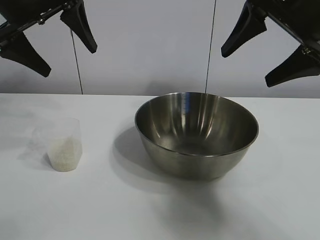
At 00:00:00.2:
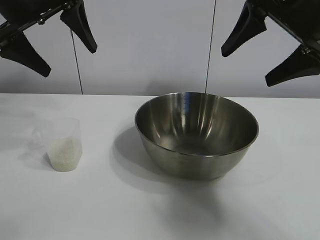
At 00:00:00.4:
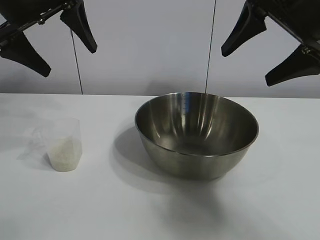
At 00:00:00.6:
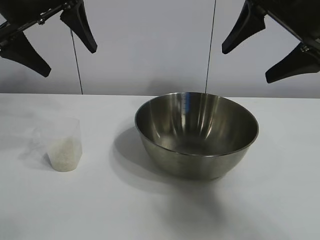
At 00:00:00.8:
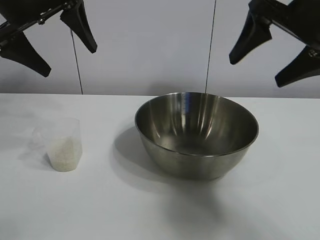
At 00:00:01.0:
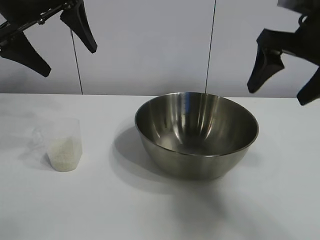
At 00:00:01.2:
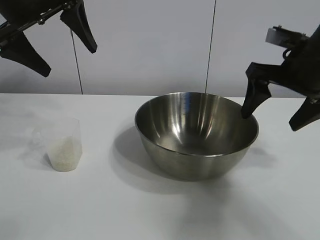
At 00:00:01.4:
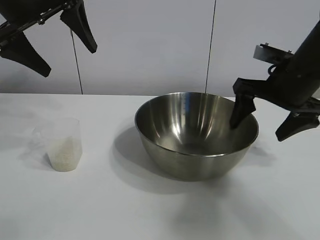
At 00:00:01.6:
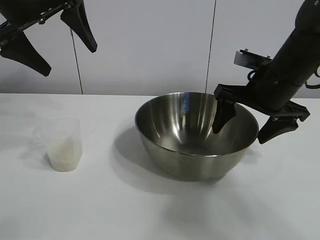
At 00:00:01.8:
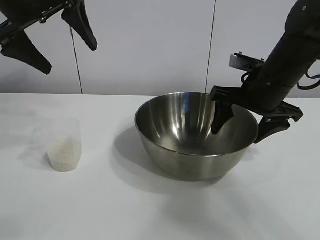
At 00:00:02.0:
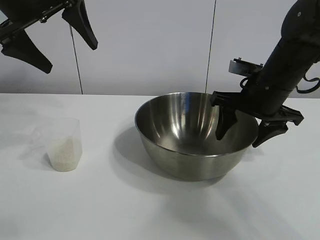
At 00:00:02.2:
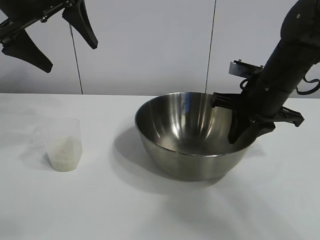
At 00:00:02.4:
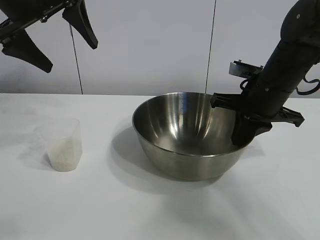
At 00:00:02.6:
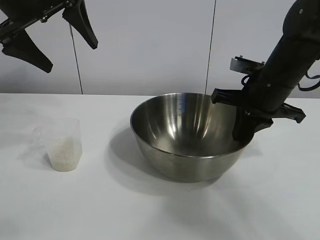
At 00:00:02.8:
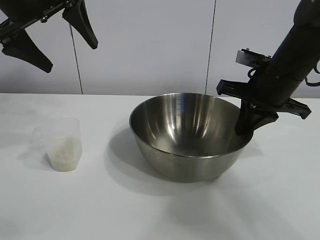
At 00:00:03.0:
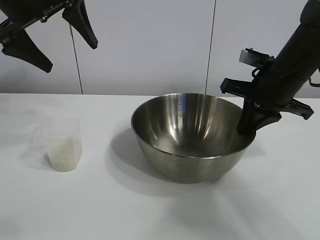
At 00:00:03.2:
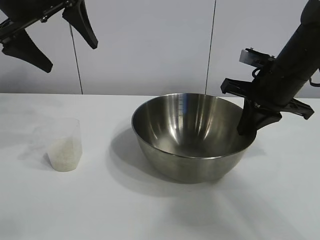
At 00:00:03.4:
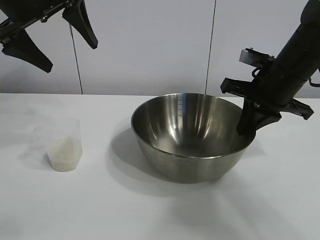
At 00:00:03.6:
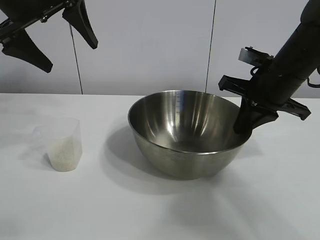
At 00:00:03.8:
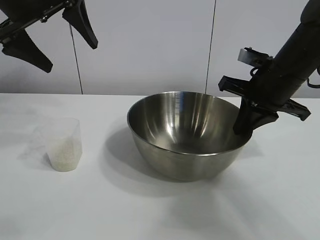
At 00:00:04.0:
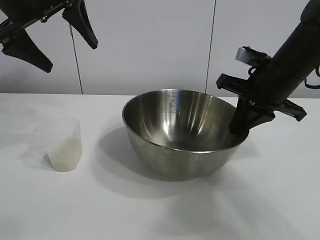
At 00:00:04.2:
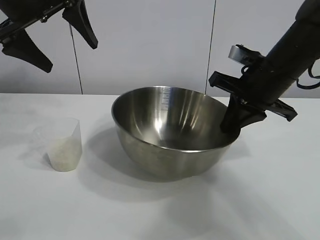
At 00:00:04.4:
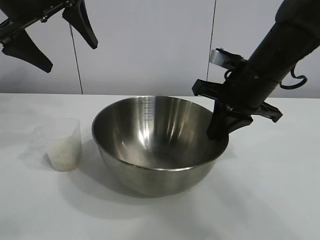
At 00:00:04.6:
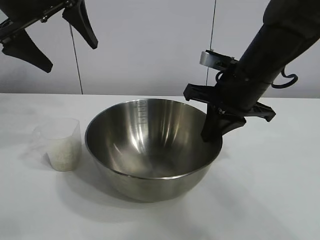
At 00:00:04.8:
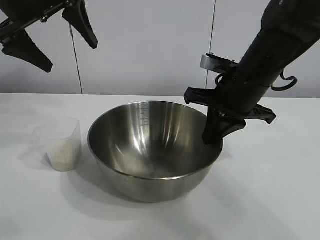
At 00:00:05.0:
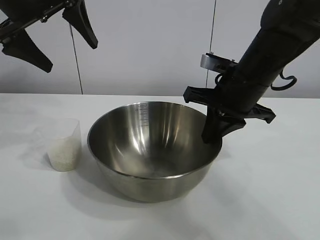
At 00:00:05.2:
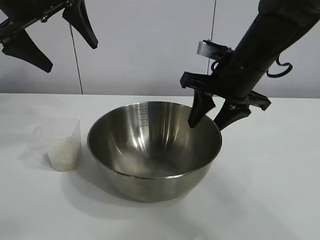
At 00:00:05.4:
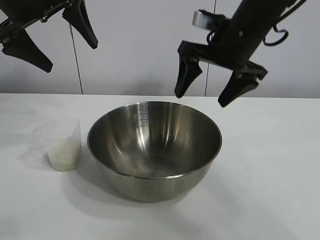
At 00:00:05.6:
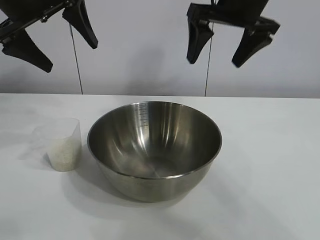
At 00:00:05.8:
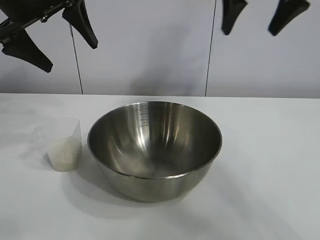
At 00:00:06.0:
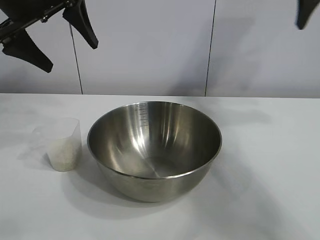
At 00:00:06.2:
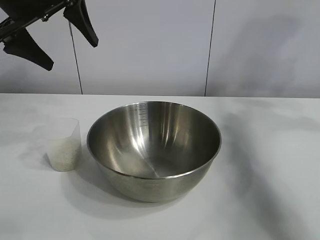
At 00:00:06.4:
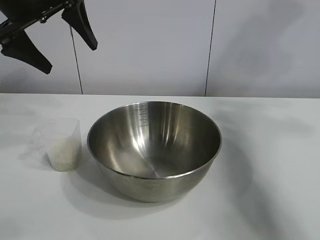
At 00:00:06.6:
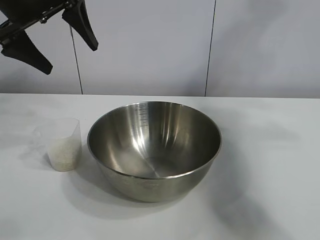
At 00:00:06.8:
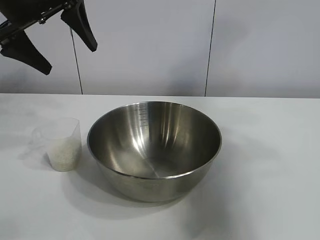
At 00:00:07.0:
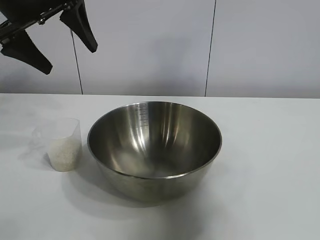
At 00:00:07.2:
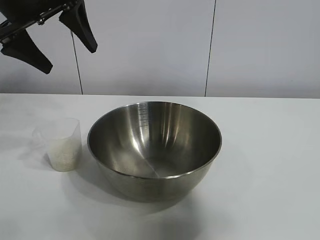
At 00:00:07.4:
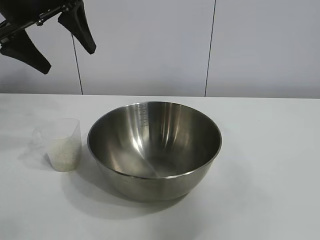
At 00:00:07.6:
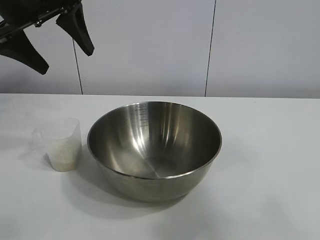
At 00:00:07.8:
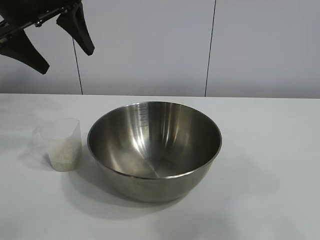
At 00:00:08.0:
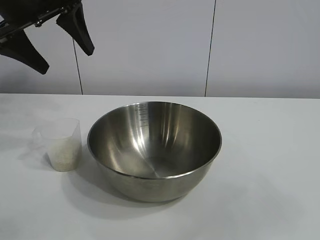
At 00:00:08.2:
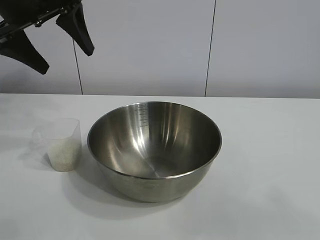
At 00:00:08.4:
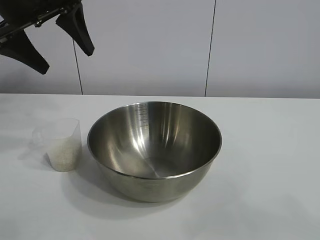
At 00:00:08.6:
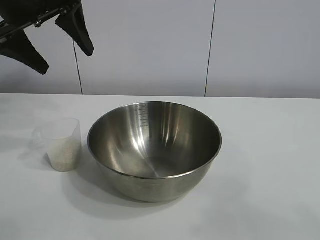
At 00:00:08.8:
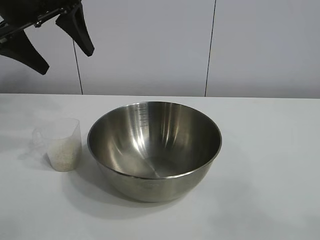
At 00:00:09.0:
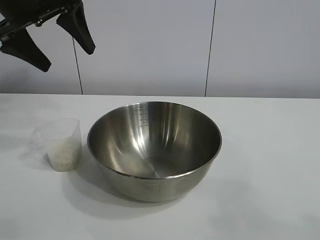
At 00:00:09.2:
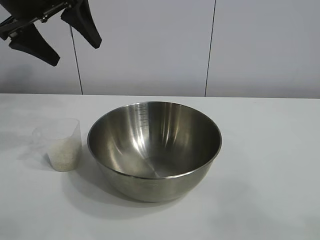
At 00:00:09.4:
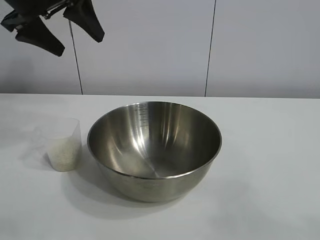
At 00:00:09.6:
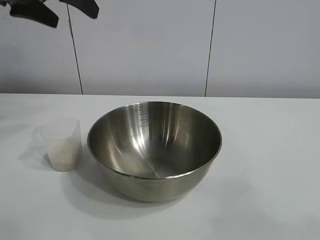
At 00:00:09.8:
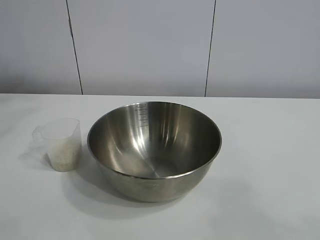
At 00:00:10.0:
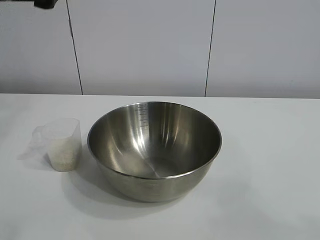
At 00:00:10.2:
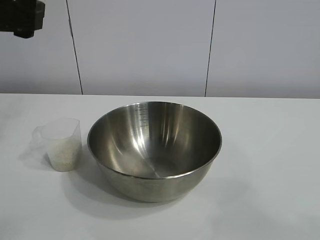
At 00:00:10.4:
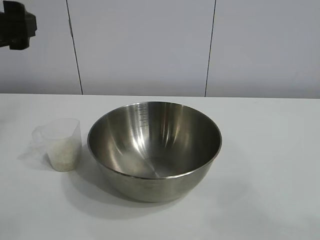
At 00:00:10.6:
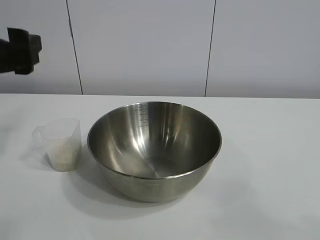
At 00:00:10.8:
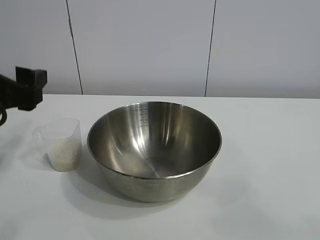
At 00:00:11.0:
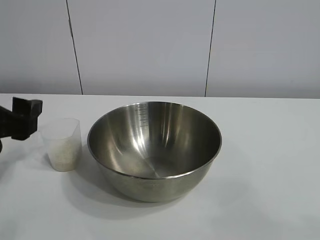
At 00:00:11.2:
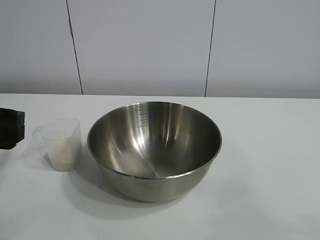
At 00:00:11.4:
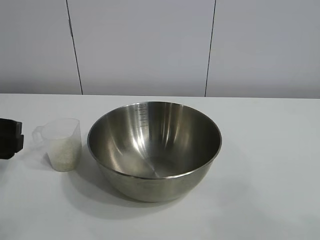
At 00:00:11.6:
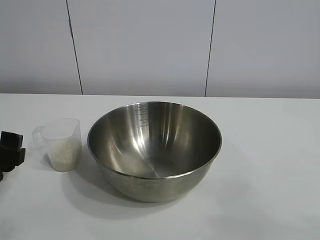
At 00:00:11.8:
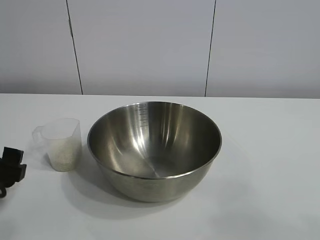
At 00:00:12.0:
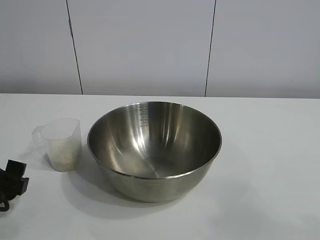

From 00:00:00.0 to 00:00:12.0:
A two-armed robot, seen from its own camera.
Task of the whole recording: the right gripper grasp the rice container and place it in the center of the table, the left gripper grasp the rice scoop and pour the rice into the rice container.
Step, from 00:00:00.6 to 00:00:05.0: Move the bowl in the center of view with right gripper.

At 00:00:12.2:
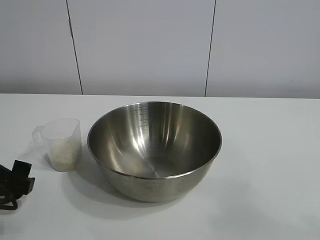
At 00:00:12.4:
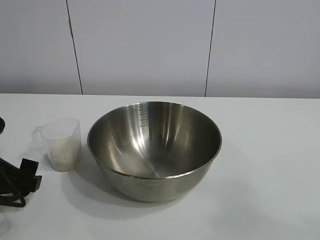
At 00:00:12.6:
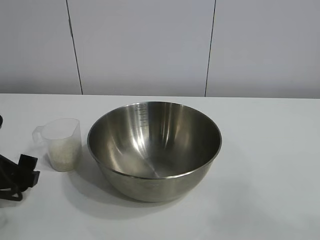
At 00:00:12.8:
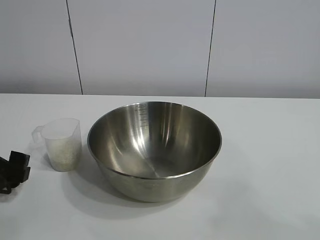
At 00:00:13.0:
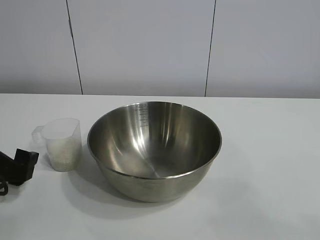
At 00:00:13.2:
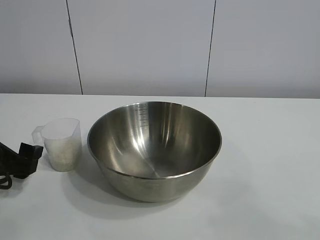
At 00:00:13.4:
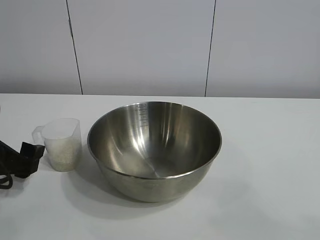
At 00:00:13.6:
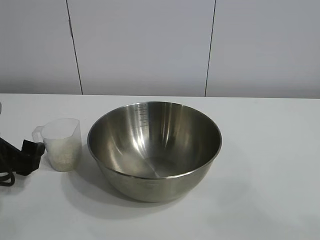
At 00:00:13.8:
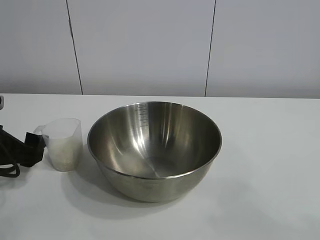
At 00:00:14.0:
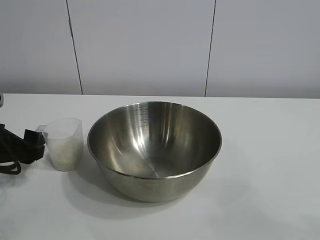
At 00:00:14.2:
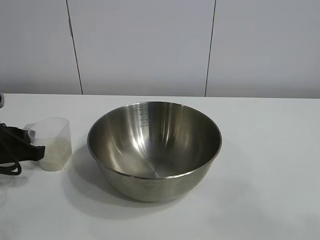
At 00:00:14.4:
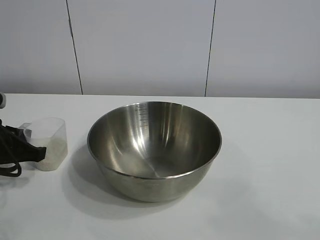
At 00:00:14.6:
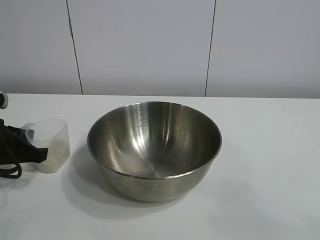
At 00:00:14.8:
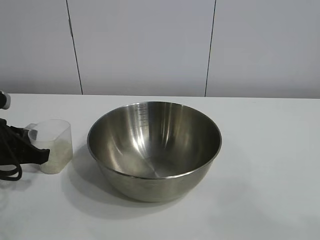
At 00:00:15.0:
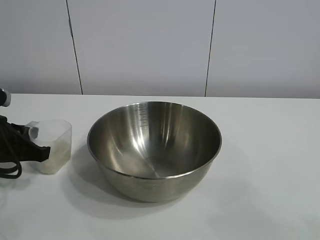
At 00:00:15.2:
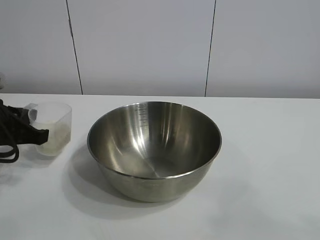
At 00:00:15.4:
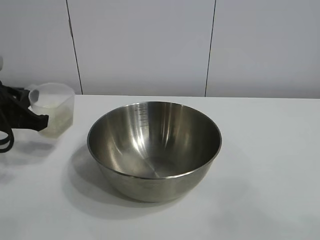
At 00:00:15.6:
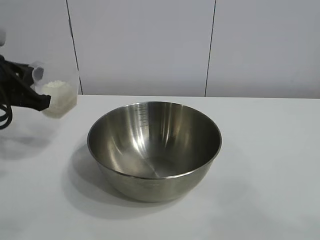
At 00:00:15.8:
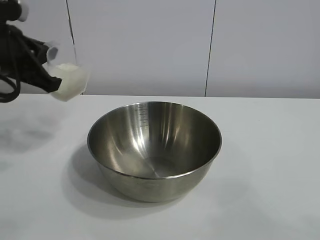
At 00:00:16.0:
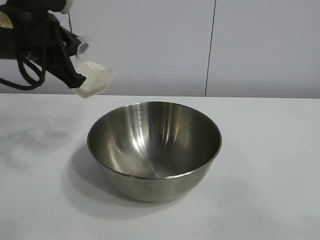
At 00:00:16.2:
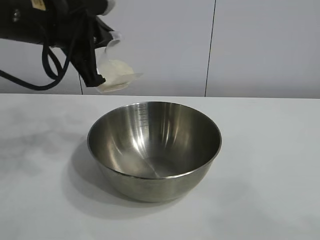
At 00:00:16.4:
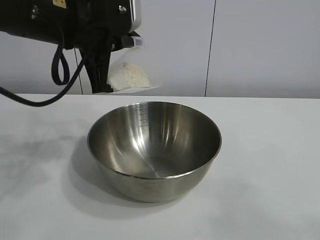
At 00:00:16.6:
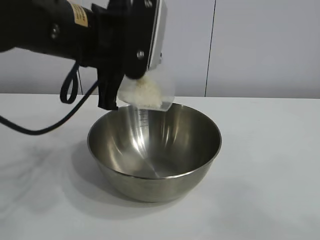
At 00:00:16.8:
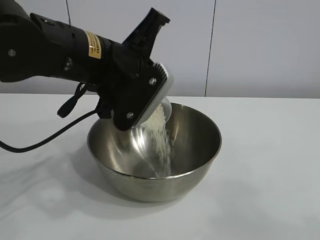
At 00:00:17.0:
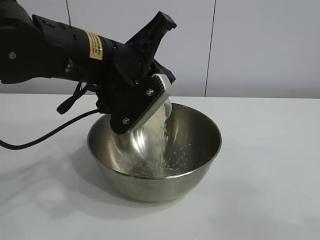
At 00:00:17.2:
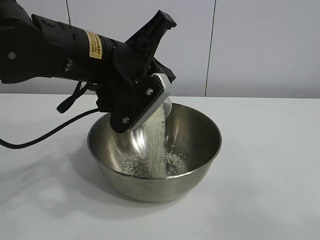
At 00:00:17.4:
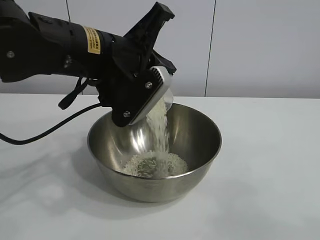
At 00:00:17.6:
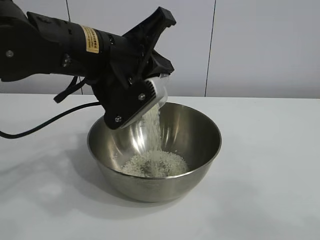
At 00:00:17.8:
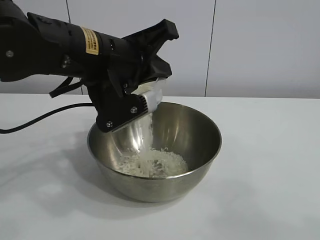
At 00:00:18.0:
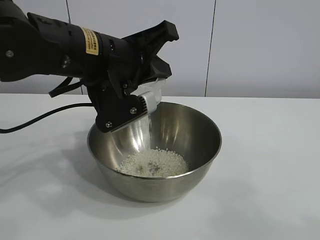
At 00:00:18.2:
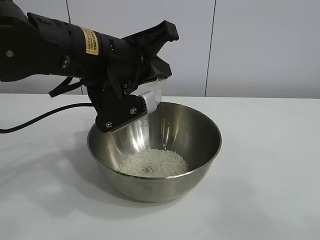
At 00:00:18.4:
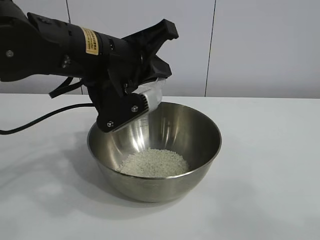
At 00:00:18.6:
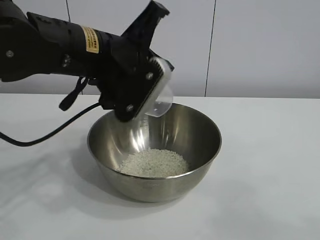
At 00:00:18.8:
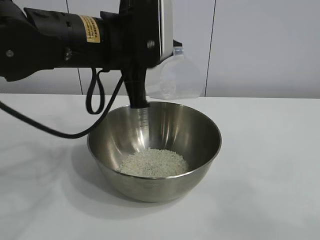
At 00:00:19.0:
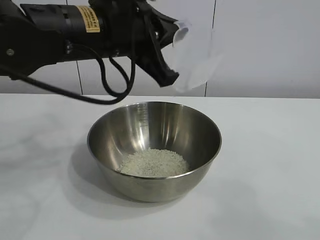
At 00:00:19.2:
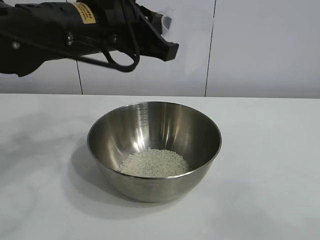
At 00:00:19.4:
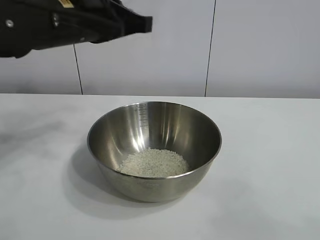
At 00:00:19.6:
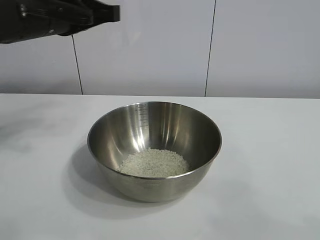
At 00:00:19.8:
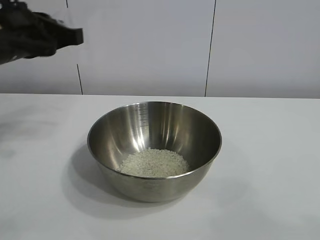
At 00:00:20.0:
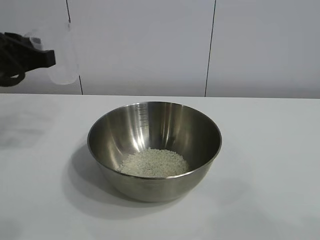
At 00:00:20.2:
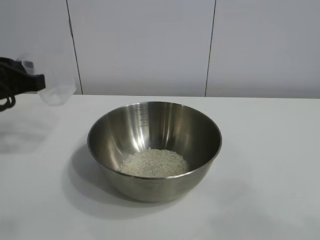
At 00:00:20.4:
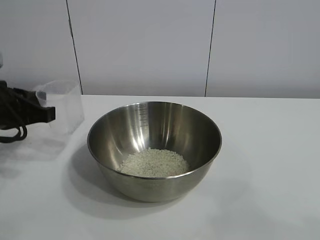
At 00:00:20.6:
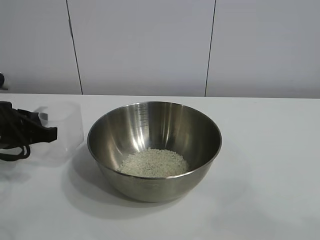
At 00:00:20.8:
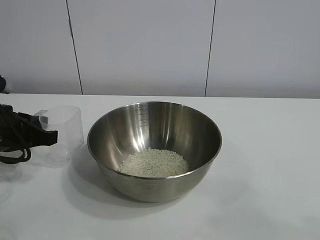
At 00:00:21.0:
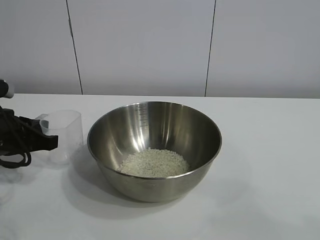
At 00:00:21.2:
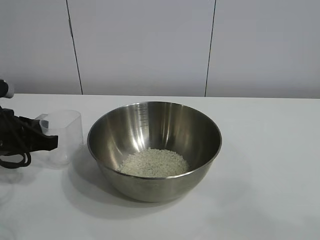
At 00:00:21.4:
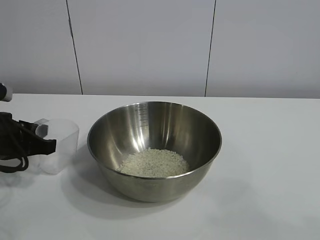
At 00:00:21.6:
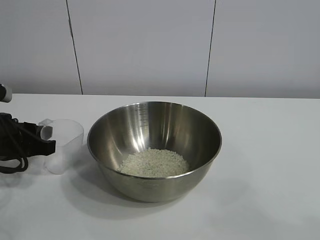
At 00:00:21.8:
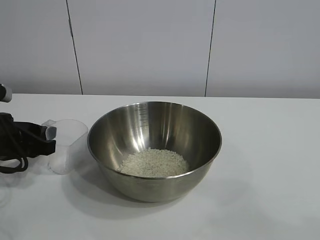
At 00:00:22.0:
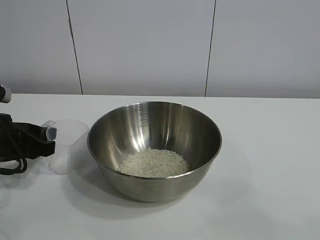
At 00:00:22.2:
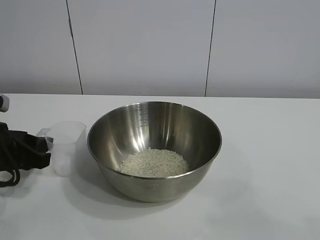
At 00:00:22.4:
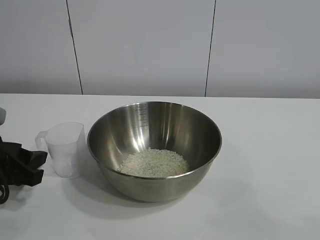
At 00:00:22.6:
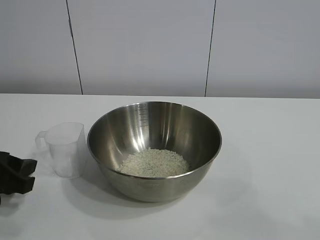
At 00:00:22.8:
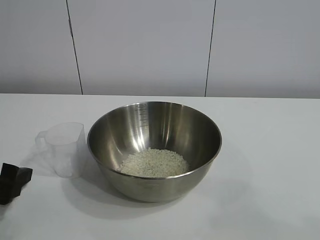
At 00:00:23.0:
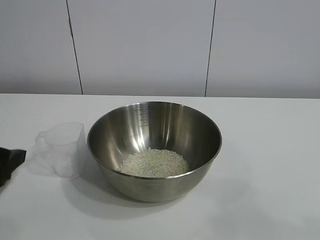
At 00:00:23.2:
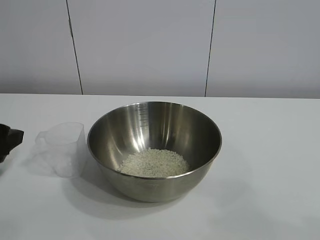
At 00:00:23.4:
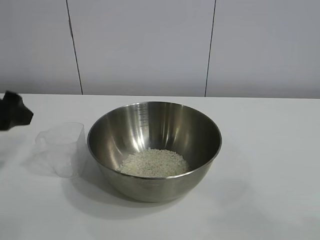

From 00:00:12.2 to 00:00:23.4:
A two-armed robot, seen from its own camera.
Task of the whole recording: the right gripper grasp the rice container and place it in the center of the table, the left gripper grasp the rice scoop and pour the rice into the rice container.
Step, from 00:00:12.2 to 00:00:14.6: Grasp the cup with rice in it with left gripper.
Step, from 00:00:14.8 to 00:00:18.4: Pour the rice from the cup into the bowl with the left gripper.
Step, from 00:00:18.8 to 00:00:22.0: Place the cup on the table with the left gripper.
